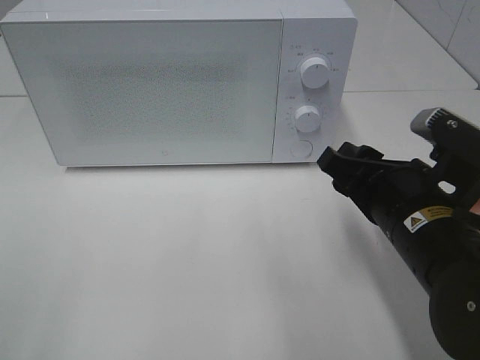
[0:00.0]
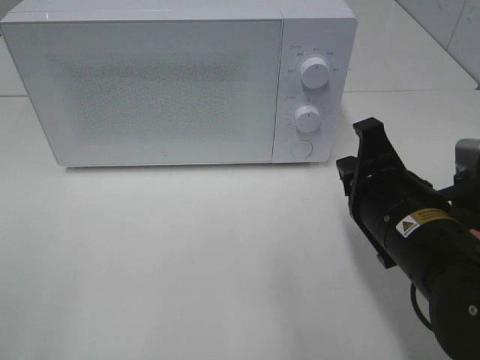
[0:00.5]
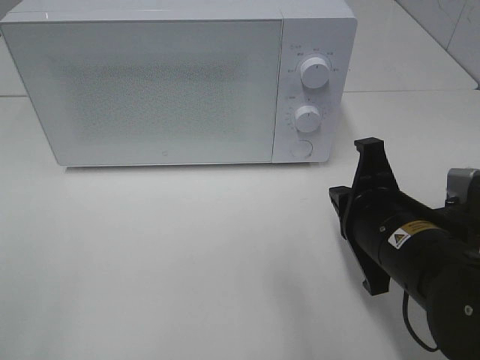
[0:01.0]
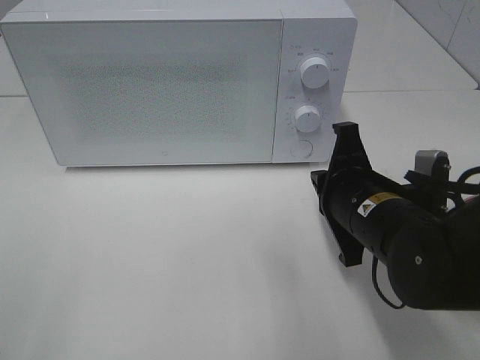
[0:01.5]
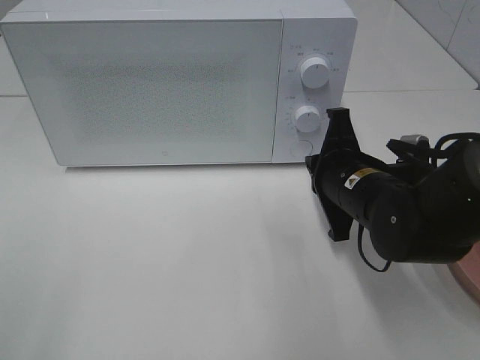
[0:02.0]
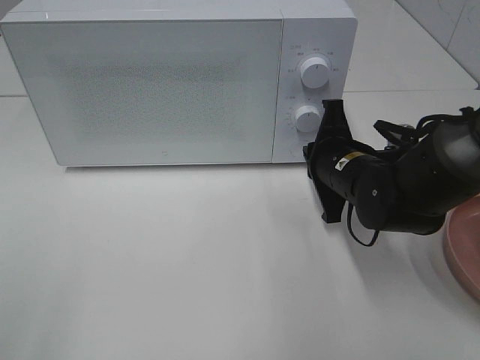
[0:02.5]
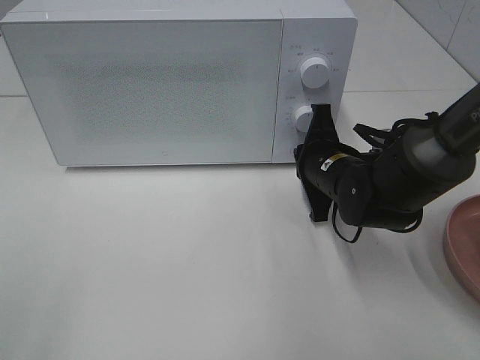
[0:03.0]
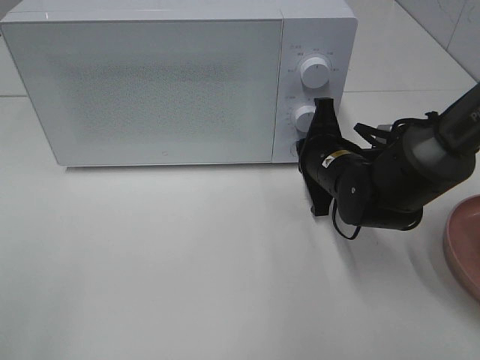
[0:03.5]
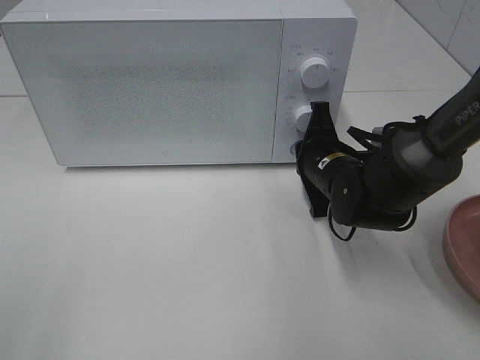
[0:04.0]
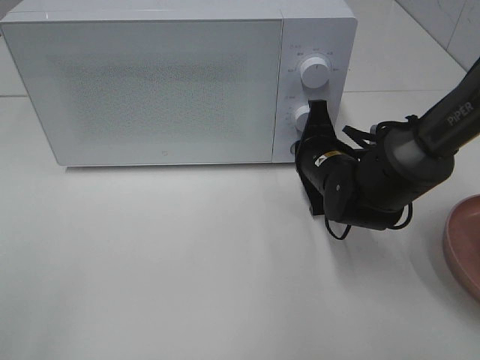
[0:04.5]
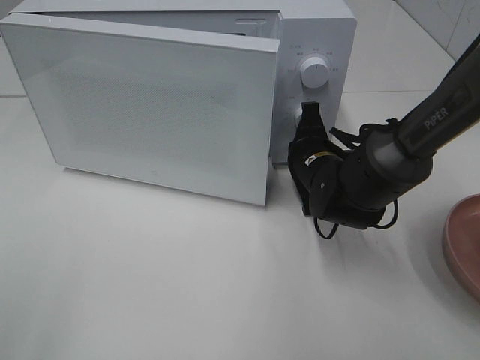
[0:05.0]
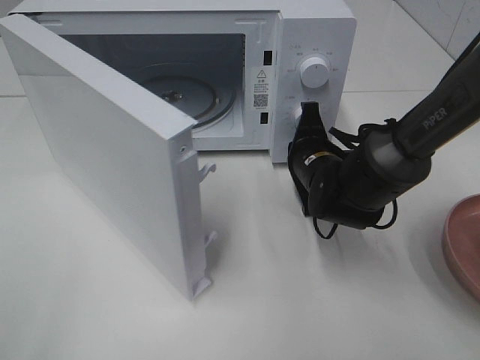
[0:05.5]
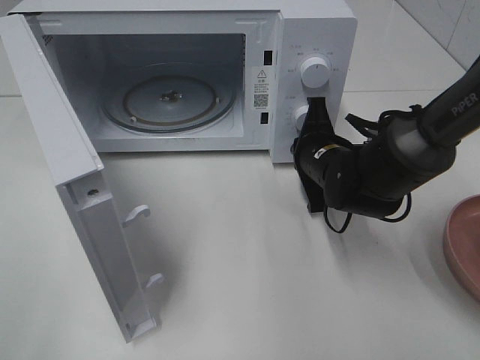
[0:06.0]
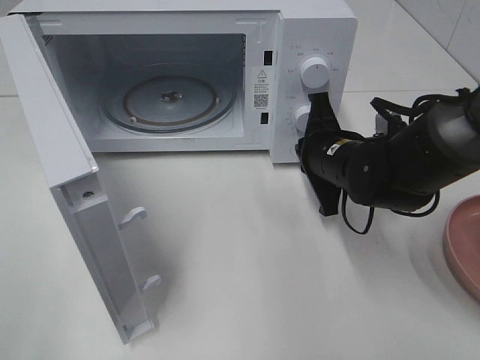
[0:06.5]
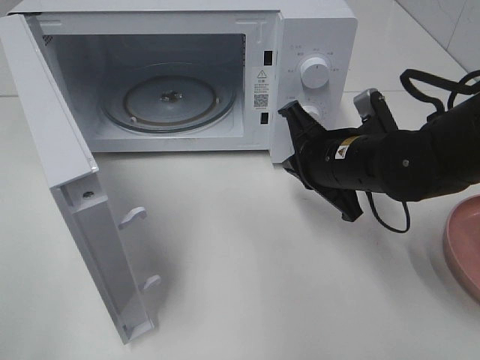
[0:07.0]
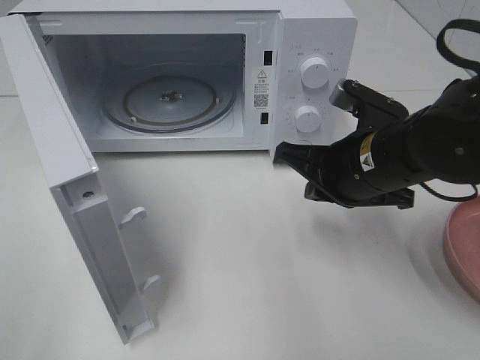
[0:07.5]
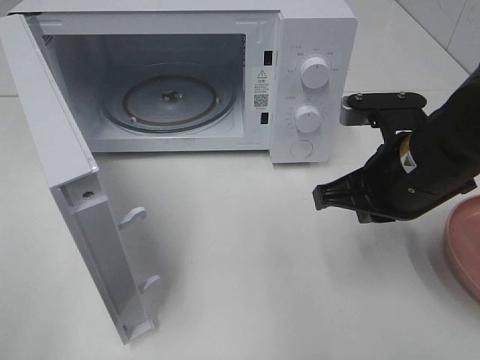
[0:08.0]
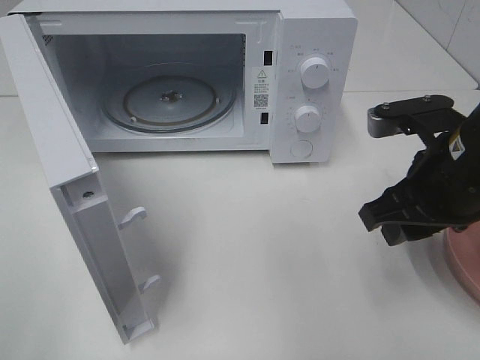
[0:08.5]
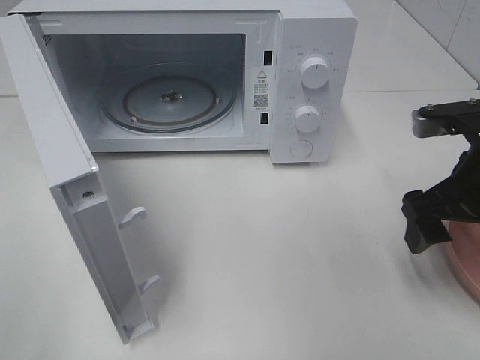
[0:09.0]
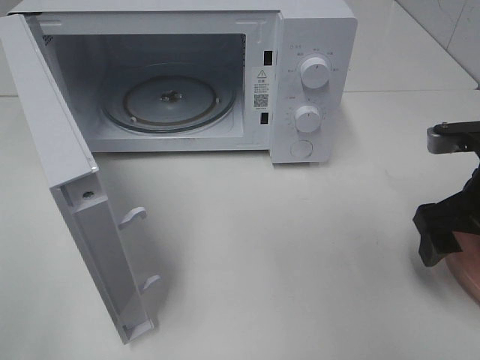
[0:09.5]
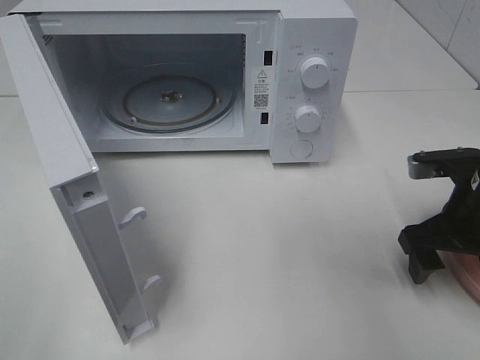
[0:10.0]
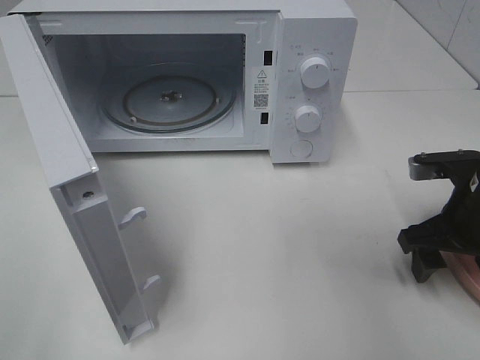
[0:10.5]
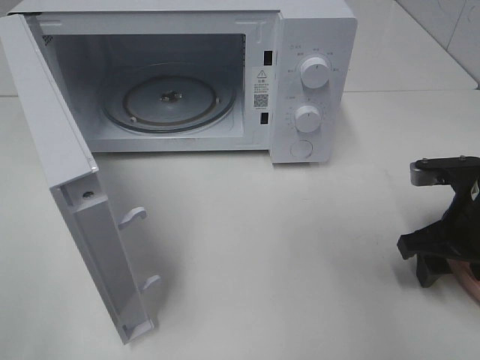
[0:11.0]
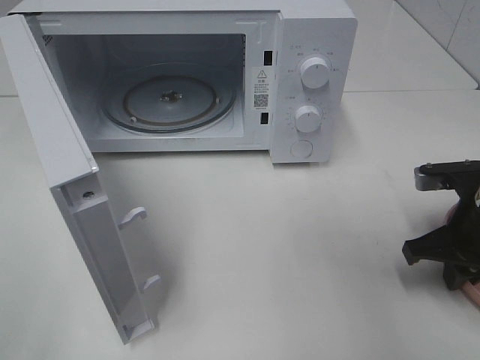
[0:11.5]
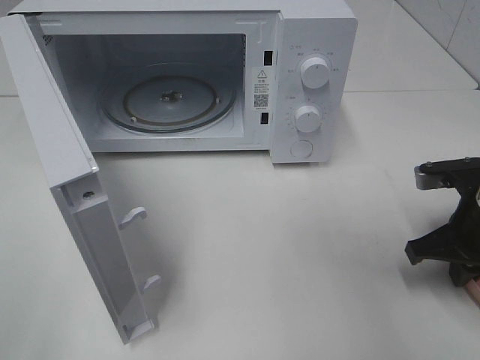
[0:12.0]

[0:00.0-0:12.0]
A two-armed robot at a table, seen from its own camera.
Task of the whole recording: Heat the burger.
Step, 0:00.0 to 0:06.5: Right hand: press the switch.
0:00.0 to 0:02.0: The right gripper travels forward by approximately 10 cm, and closes up.
0:02.0 to 0:04.0: The right gripper travels forward by about 5 cm.
0:06.0 to 0:08.0: The right gripper is displaced backward and upward by some 15 cm.
0:08.0 to 0:10.0: The right gripper travels to the right and downward by about 10 cm, and opens up.
0:10.0 to 0:12.0: The right gripper closes.

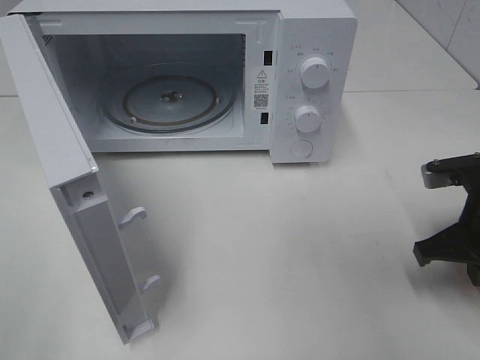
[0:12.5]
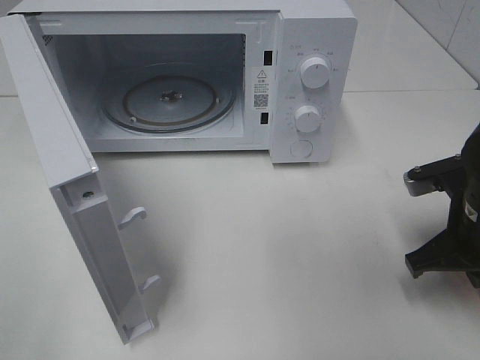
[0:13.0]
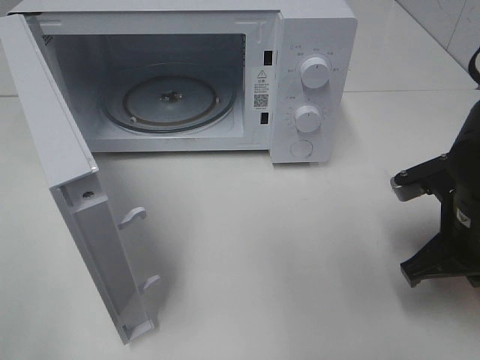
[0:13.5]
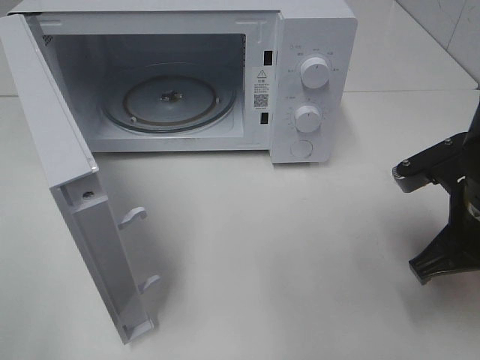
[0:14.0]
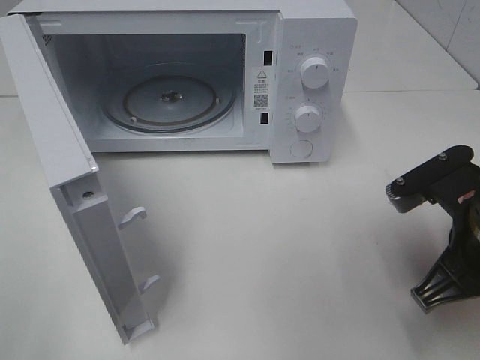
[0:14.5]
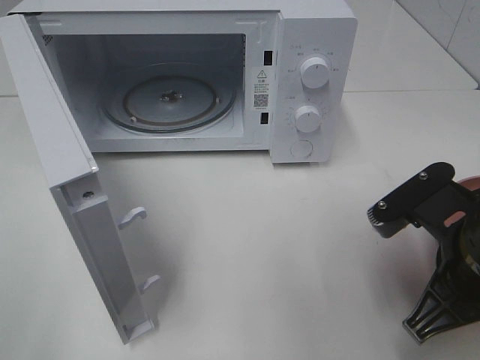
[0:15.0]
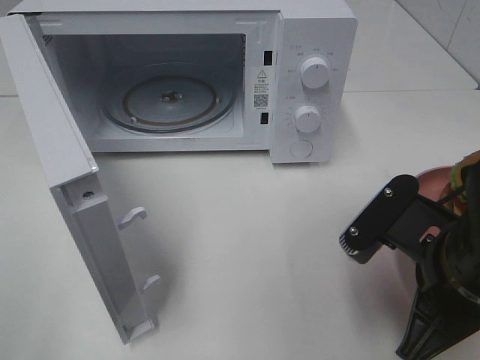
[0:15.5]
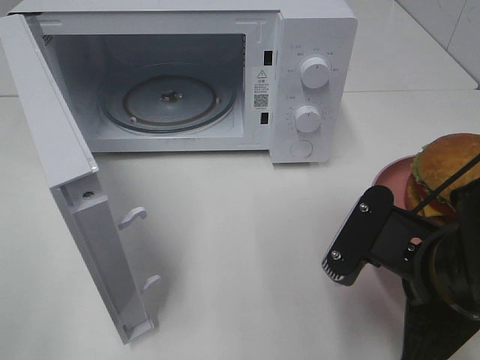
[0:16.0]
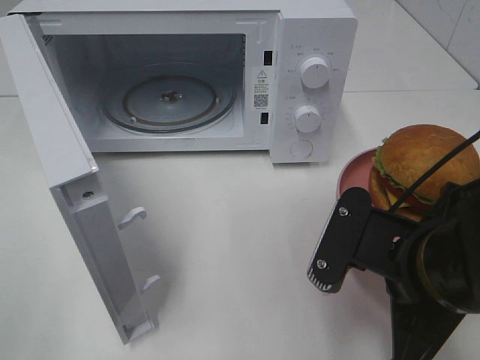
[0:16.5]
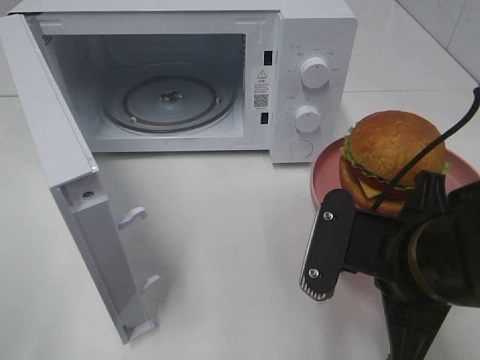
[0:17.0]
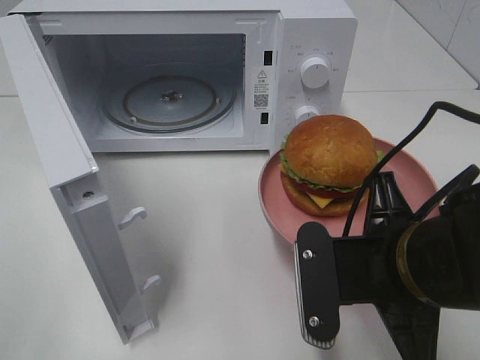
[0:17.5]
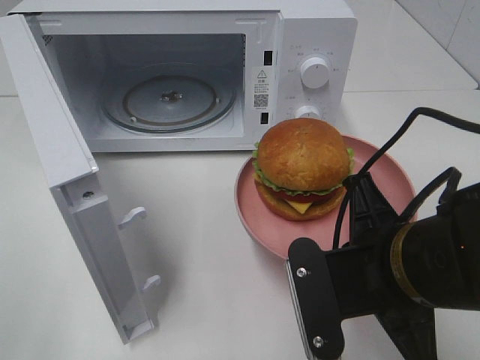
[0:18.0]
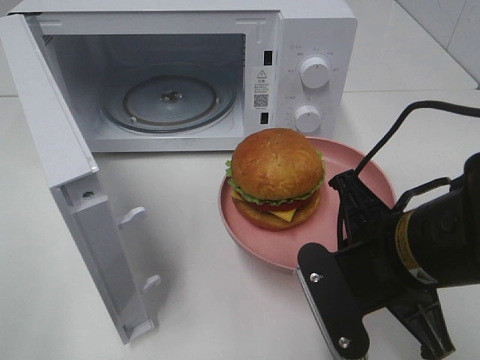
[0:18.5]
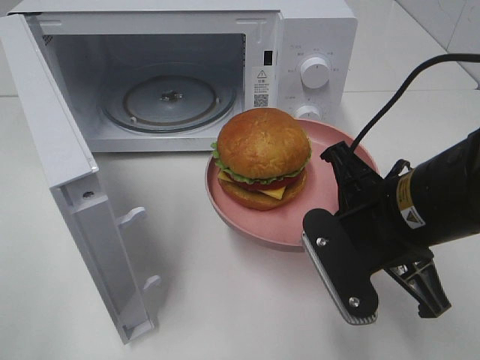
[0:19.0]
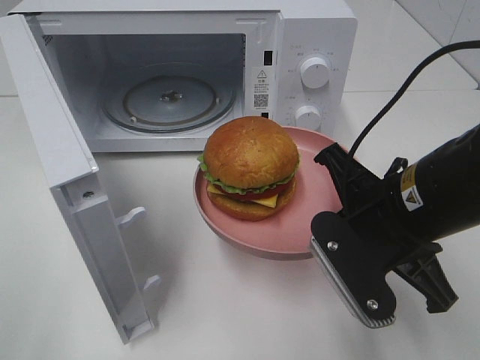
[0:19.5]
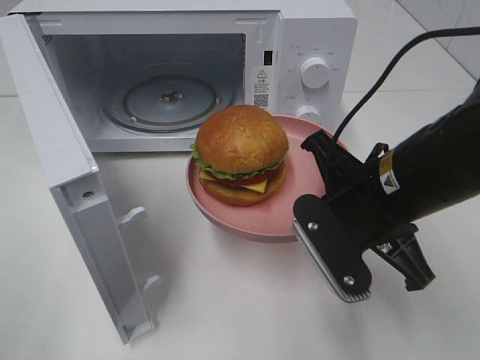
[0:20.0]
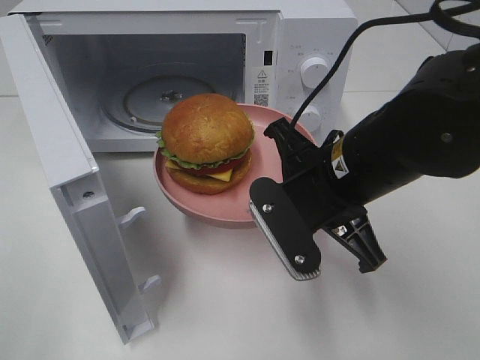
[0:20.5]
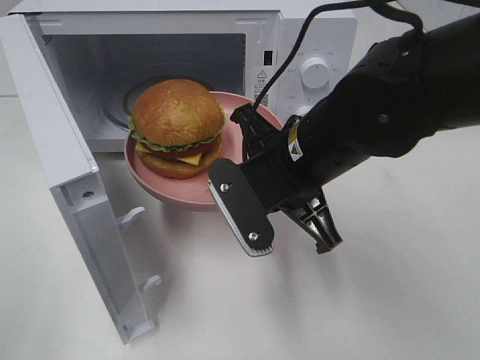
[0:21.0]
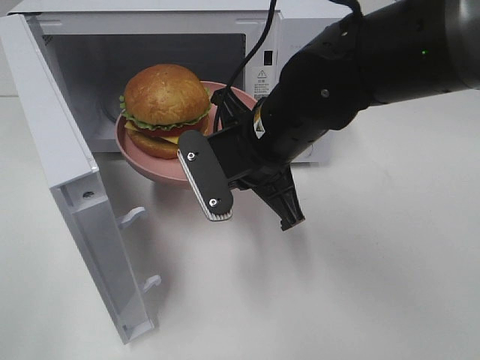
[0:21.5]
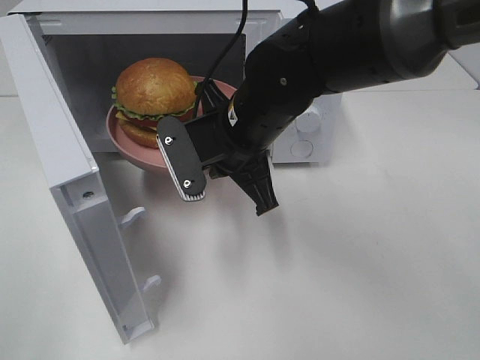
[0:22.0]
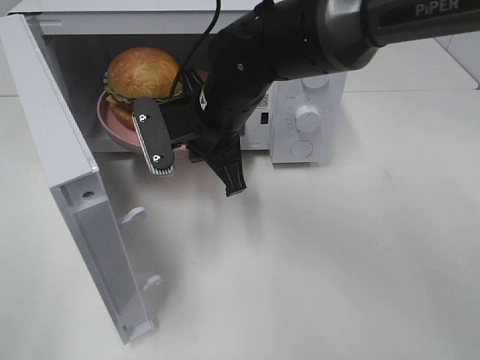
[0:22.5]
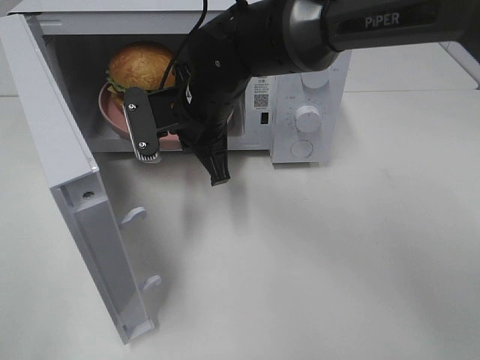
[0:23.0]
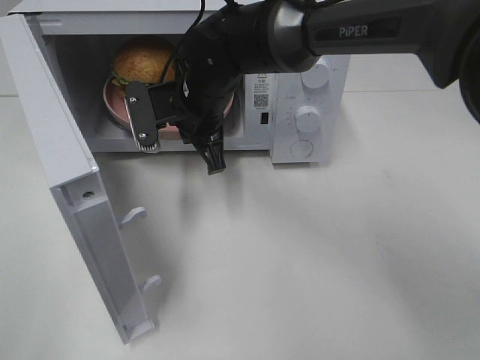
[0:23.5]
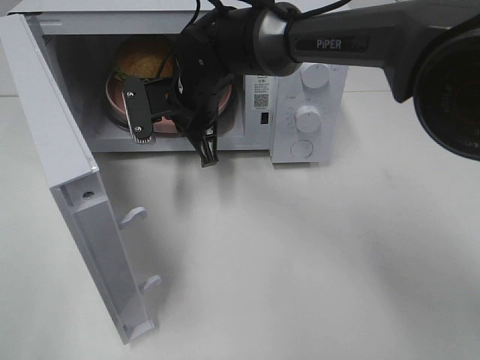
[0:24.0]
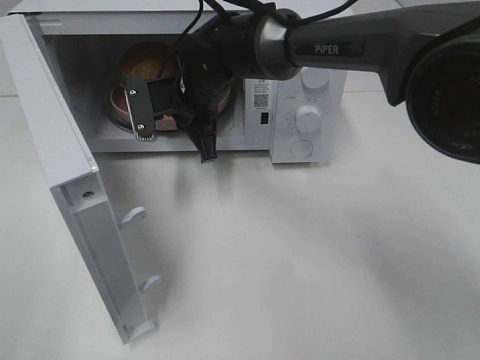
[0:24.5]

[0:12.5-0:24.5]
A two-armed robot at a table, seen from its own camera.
Task of the whole recording: Heat the burger.
0:12.5 to 0:14.5: The right gripper goes approximately 10 cm to the left and backward.
0:14.5 to 0:16.5: The right gripper goes approximately 5 cm to the left.
0:18.5 to 0:20.5: The right gripper is displaced forward by about 5 cm.
0:20.5 to 0:22.5: The right gripper shifts some 15 cm to the left and forward.
0:22.5 to 0:24.5: The right gripper moves forward, roughly 10 cm.

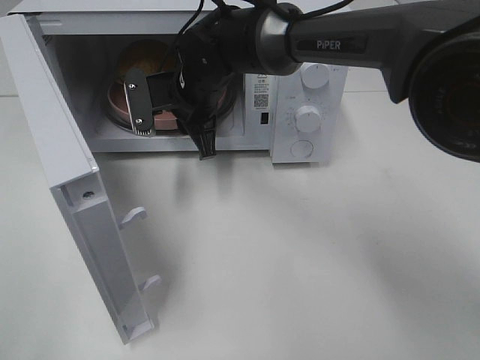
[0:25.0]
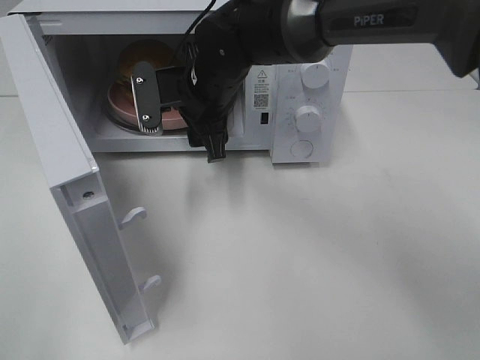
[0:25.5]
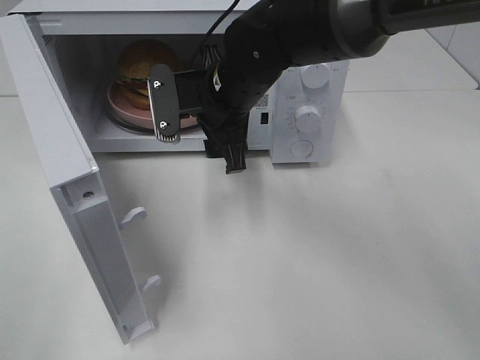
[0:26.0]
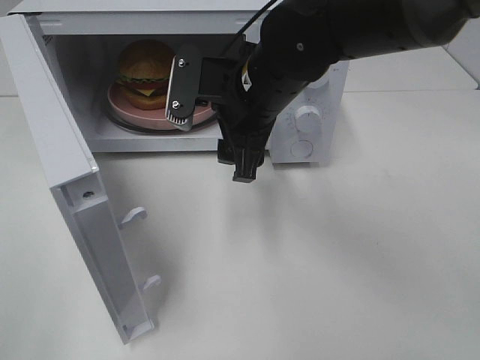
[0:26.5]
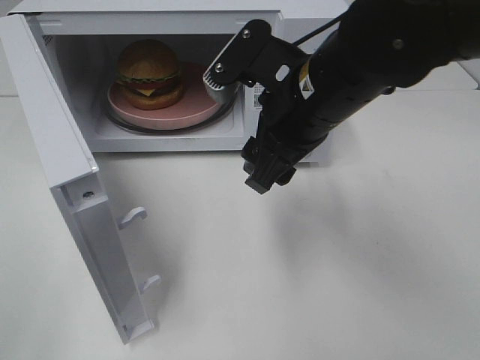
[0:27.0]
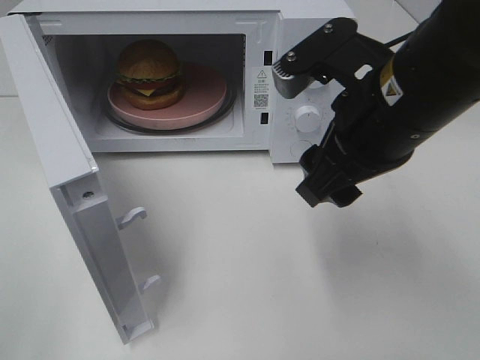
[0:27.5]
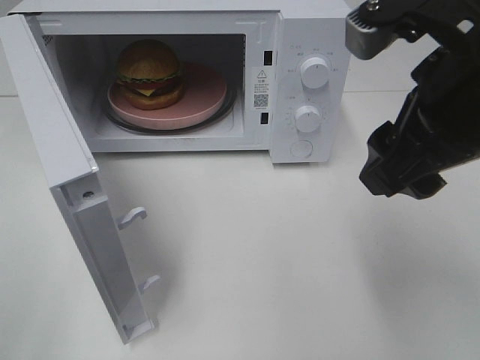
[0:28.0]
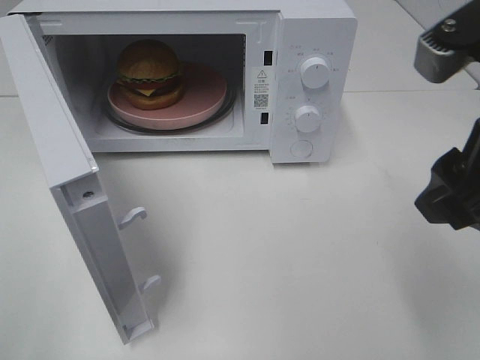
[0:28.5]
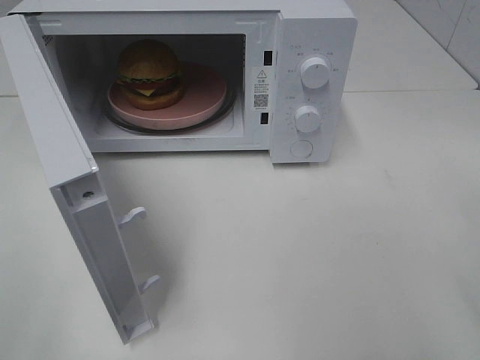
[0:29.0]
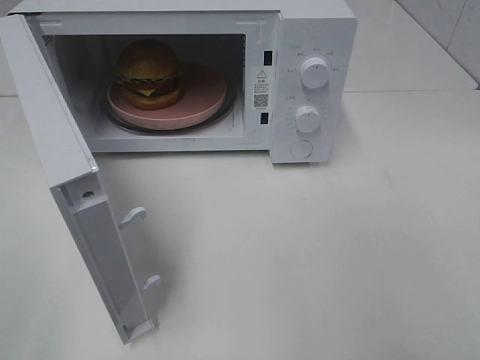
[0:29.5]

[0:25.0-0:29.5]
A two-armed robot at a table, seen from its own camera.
Task of the whole recording: Heat the burger.
0:25.0 to 0:27.0: The right gripper is displaced backward, to the right and upward by about 20 cm.
0:27.0 to 0:29.5: The right gripper goes some 30 cm to the right and backward.
